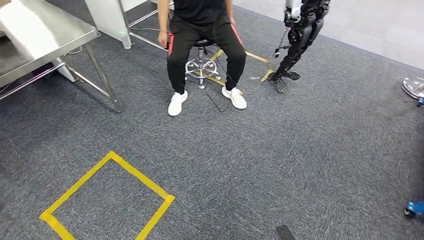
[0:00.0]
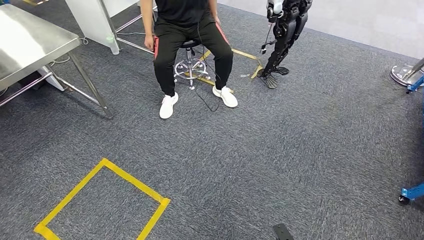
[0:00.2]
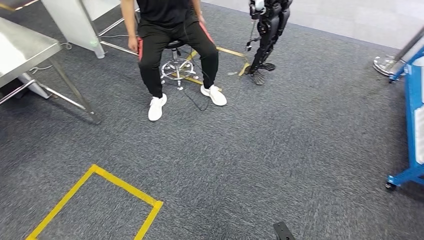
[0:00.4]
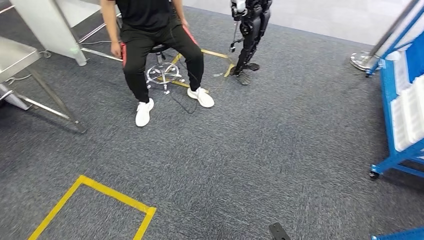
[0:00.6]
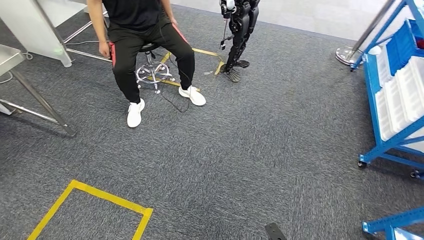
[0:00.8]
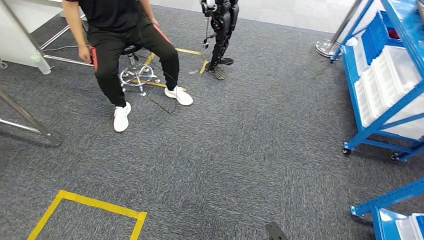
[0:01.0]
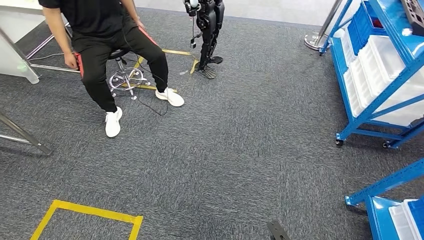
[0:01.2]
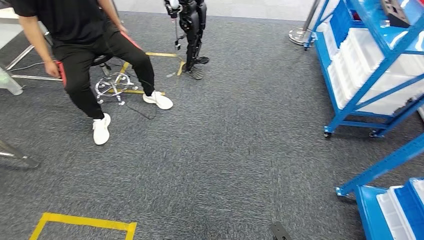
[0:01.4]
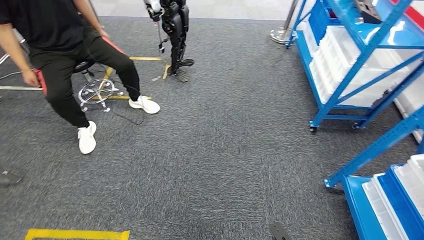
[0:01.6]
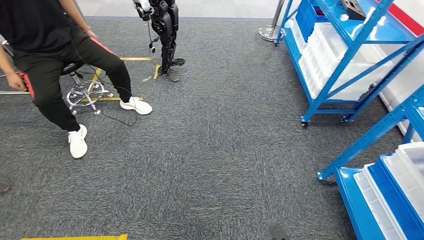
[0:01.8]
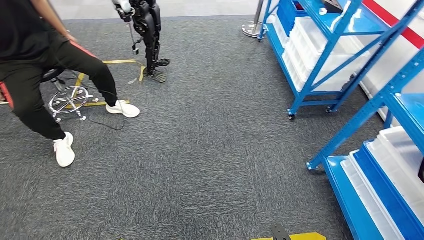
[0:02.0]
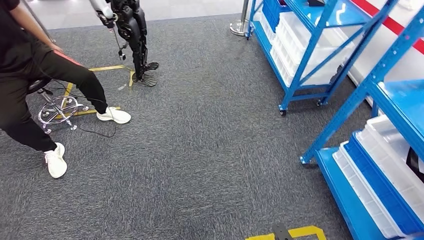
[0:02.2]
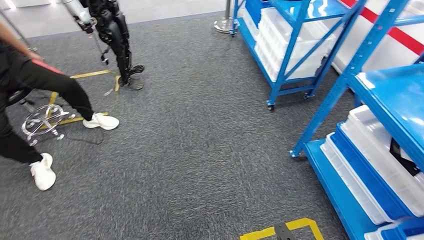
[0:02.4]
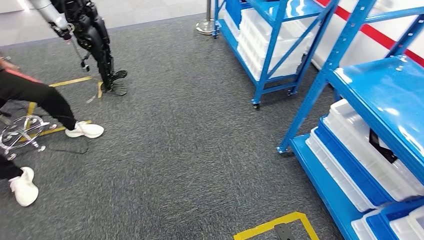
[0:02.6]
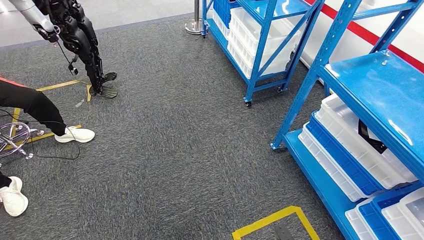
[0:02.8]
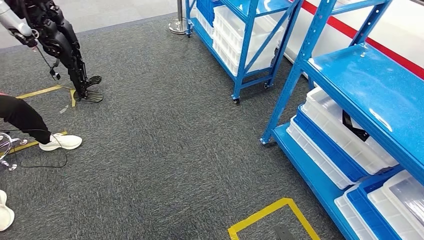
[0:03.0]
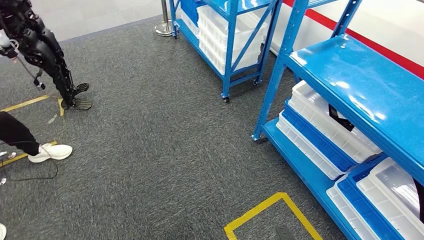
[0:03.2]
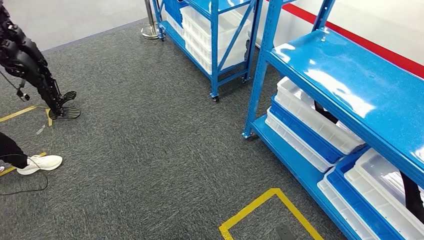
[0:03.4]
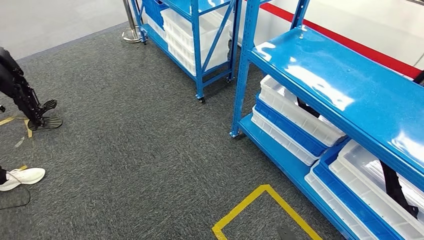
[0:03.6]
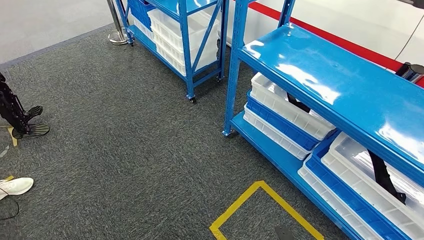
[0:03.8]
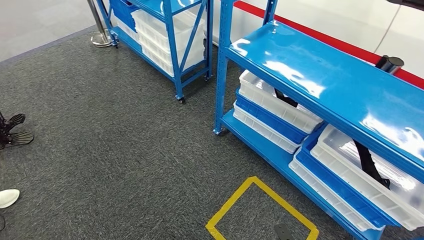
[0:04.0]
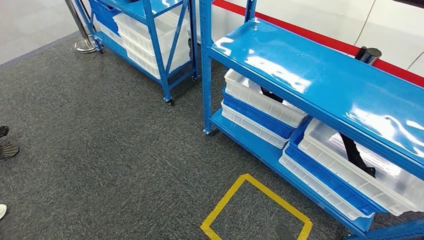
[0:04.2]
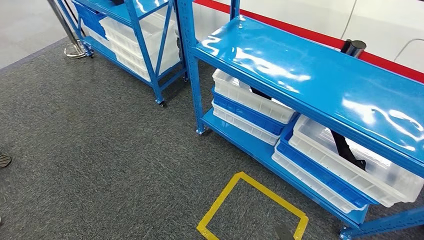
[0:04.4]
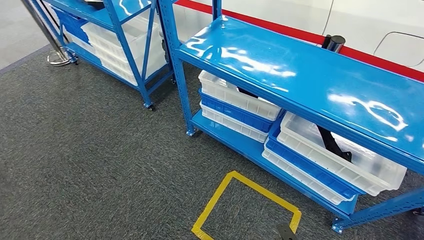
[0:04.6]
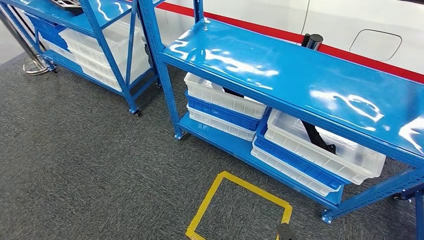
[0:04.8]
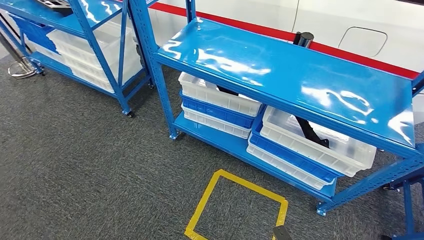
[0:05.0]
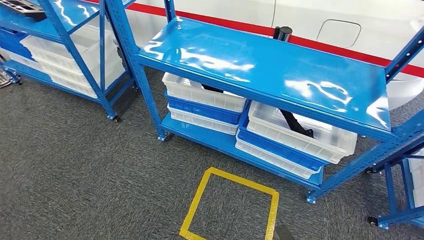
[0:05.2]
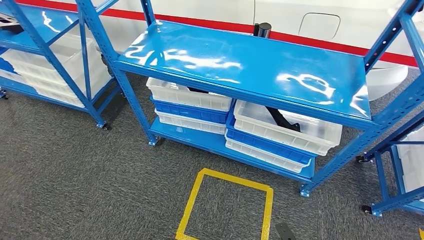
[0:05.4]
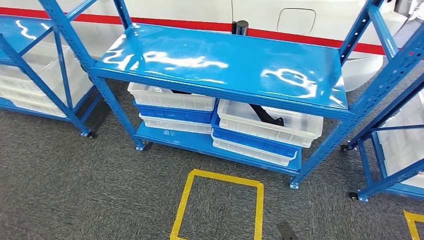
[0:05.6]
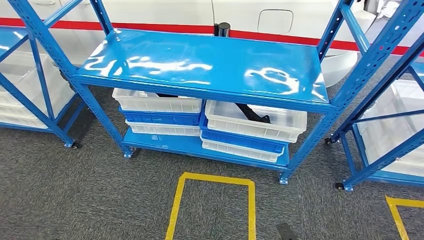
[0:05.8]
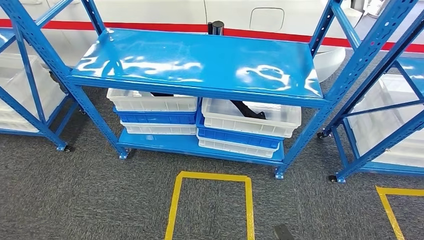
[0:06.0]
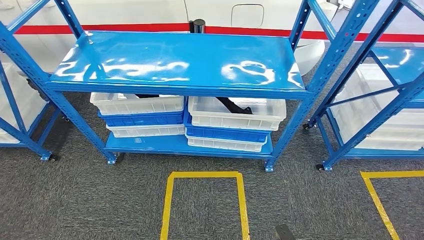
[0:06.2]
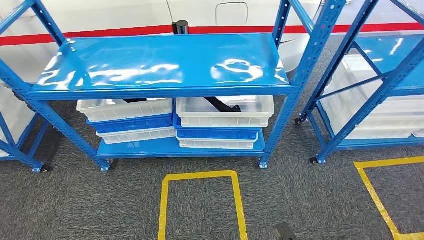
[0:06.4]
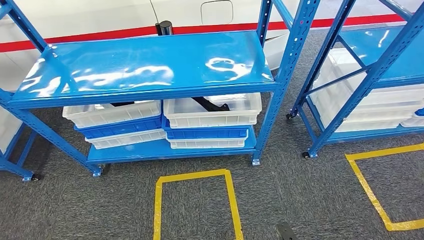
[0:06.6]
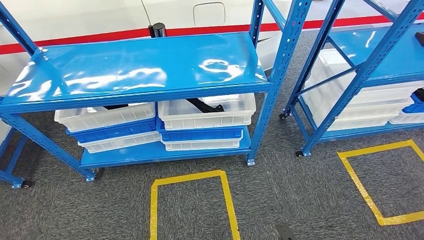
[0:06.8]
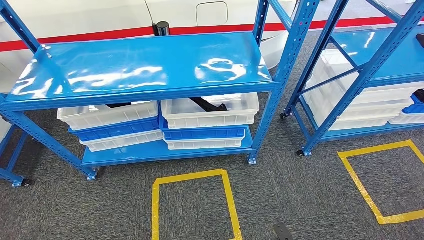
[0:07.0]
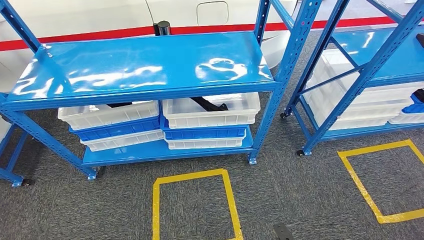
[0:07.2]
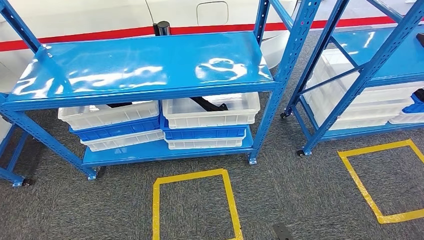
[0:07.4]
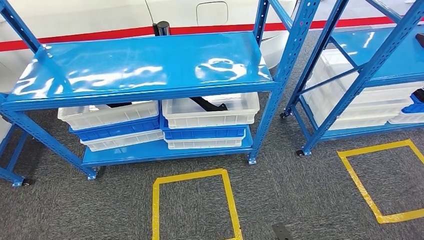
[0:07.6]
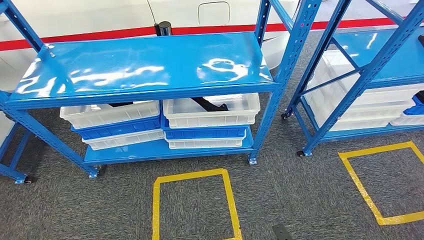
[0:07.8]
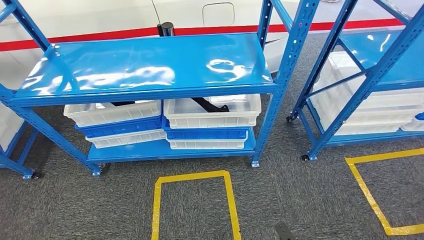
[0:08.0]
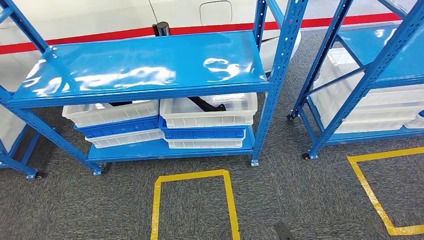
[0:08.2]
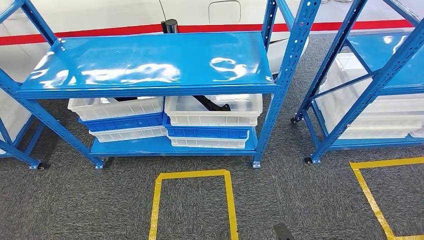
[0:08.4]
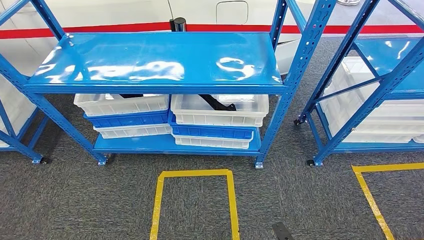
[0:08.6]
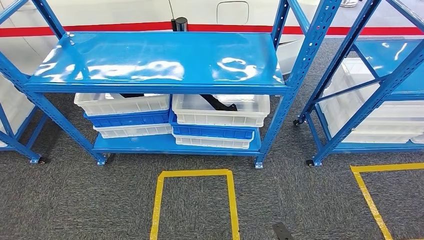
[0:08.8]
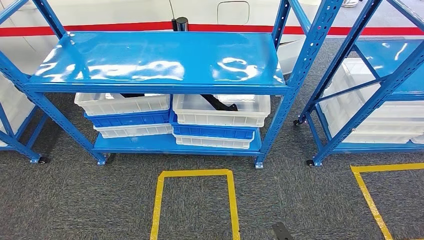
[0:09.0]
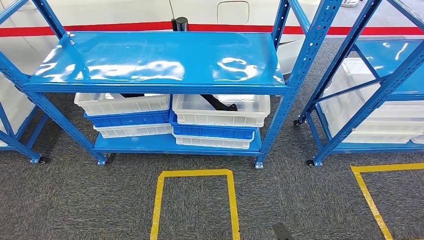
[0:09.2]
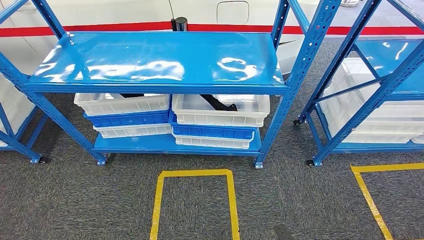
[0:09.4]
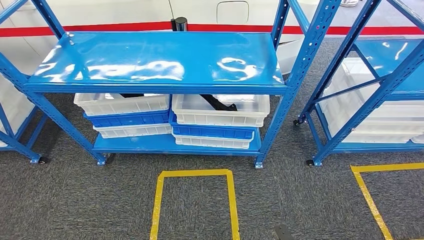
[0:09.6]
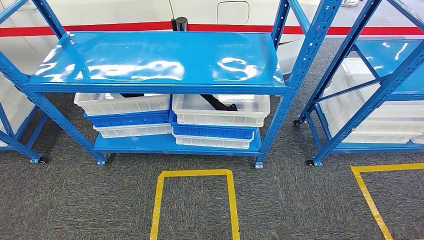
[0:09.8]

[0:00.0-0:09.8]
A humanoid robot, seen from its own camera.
Step, 0:00.0 to 0:09.8: Return to the initial position at the shelf.

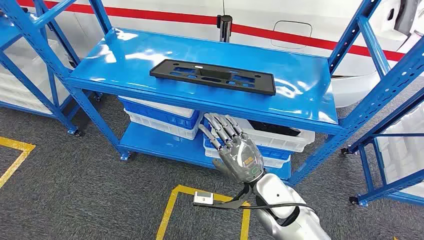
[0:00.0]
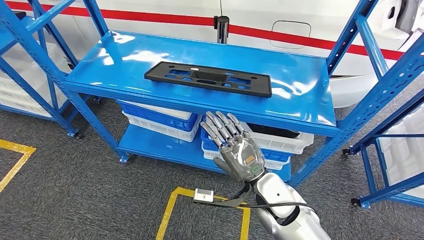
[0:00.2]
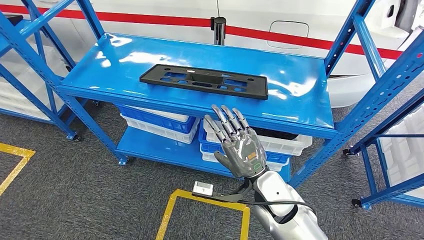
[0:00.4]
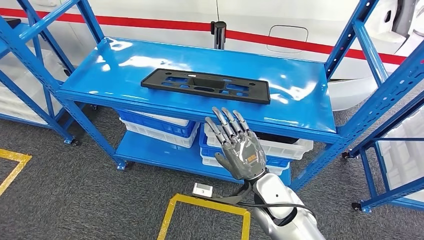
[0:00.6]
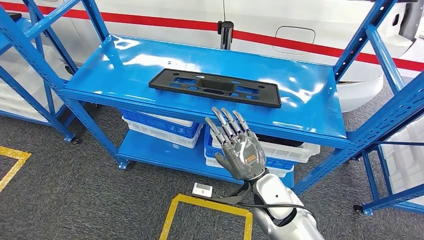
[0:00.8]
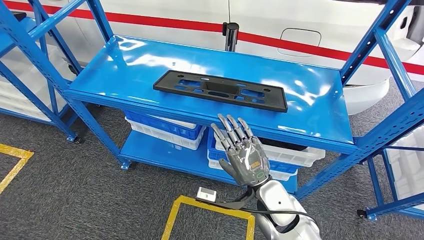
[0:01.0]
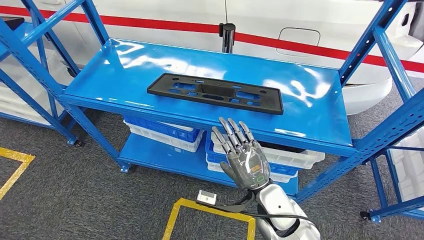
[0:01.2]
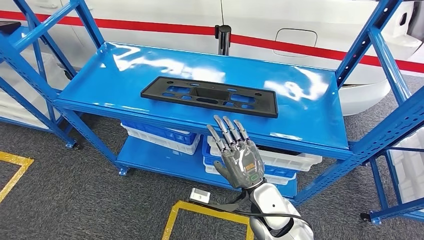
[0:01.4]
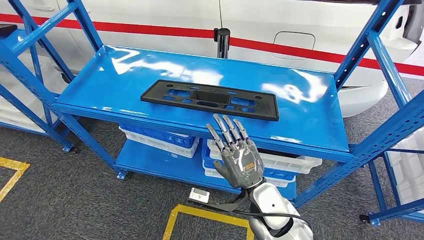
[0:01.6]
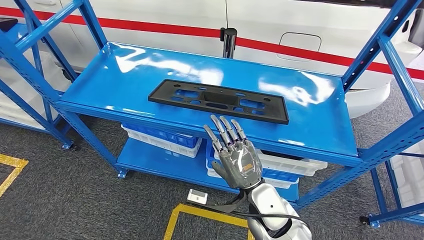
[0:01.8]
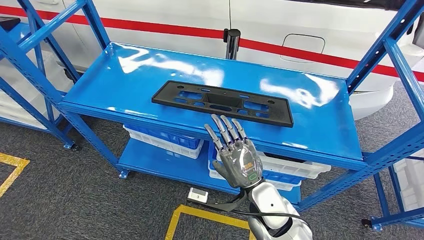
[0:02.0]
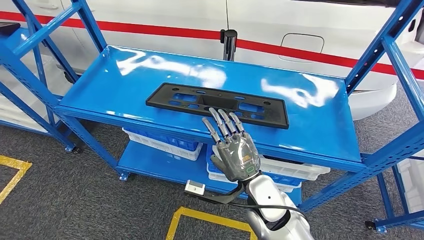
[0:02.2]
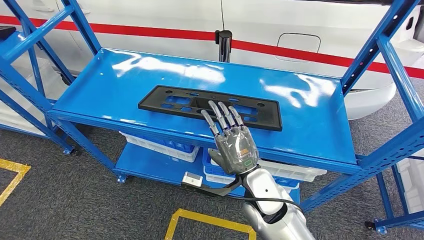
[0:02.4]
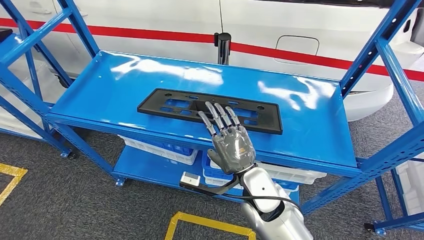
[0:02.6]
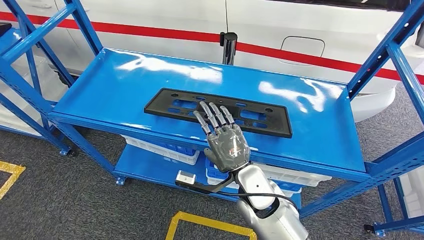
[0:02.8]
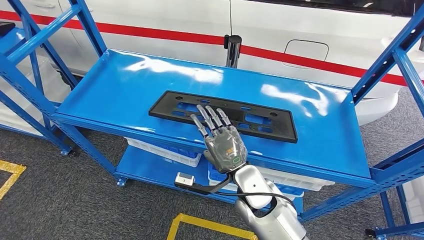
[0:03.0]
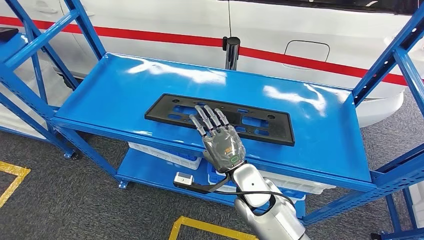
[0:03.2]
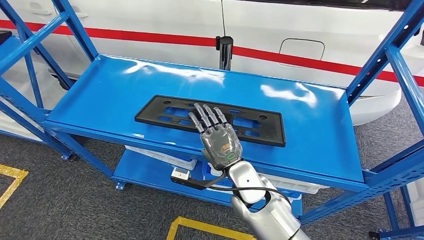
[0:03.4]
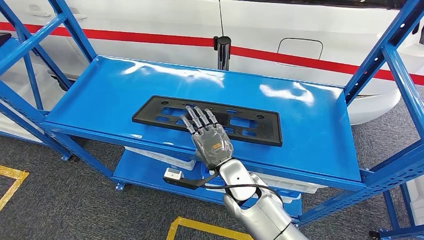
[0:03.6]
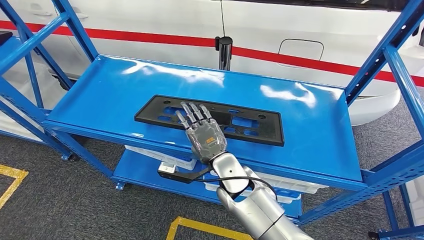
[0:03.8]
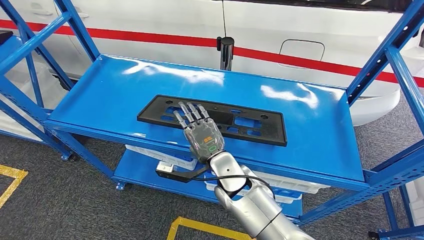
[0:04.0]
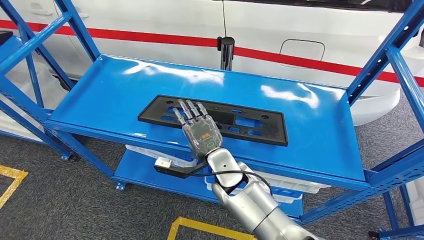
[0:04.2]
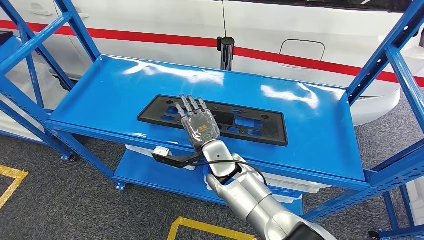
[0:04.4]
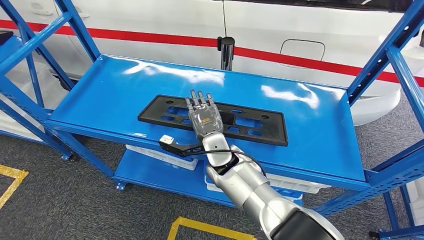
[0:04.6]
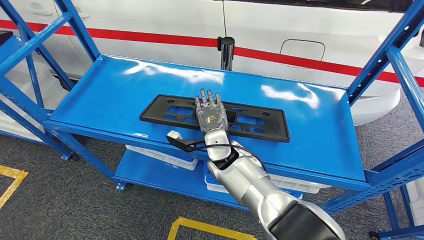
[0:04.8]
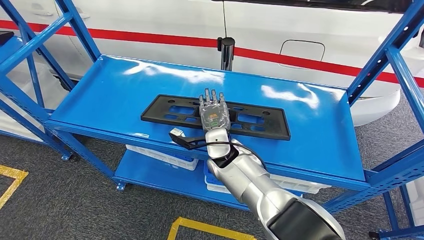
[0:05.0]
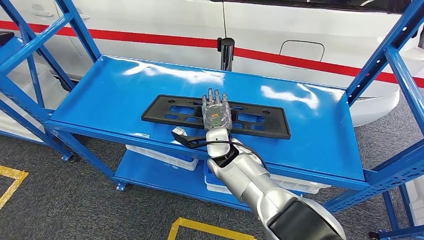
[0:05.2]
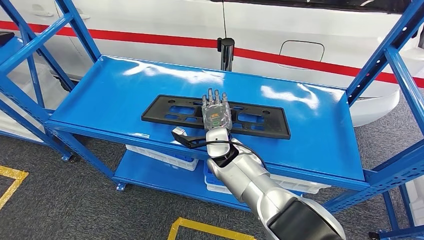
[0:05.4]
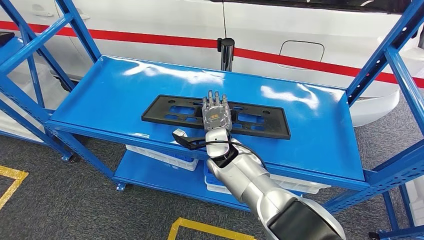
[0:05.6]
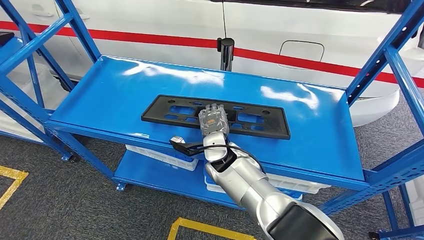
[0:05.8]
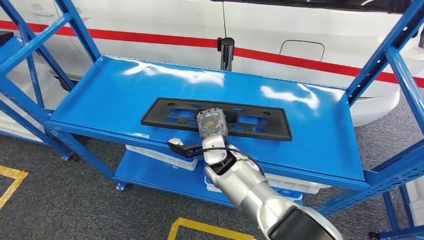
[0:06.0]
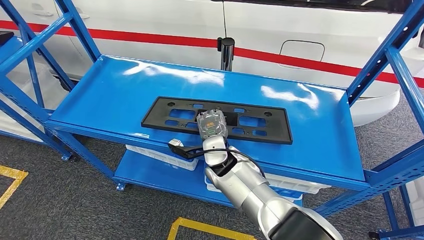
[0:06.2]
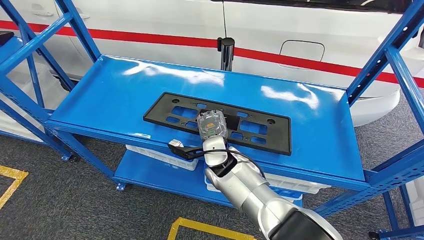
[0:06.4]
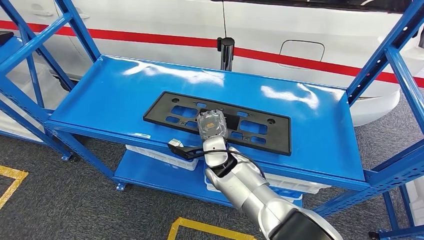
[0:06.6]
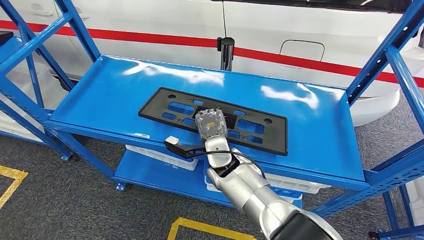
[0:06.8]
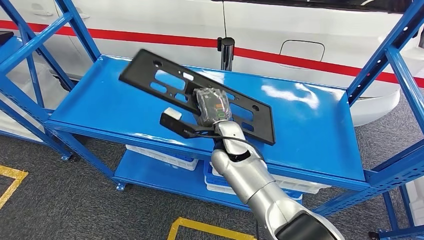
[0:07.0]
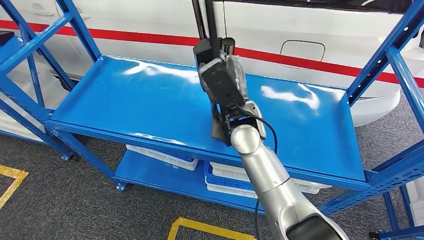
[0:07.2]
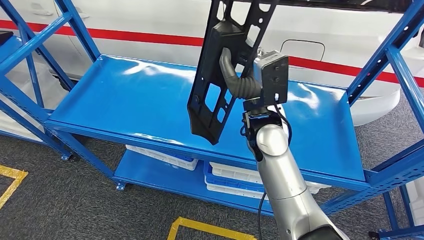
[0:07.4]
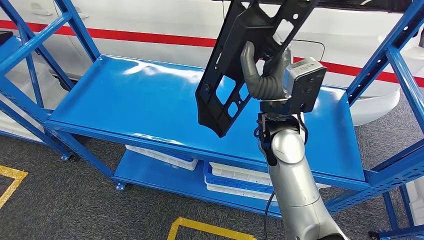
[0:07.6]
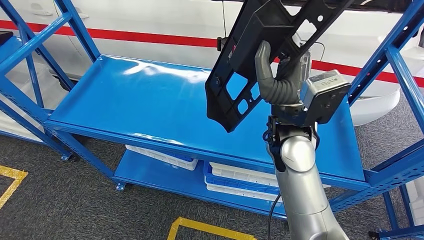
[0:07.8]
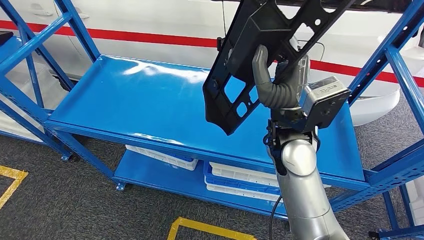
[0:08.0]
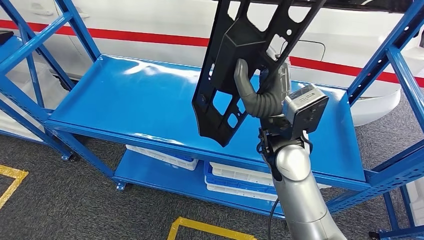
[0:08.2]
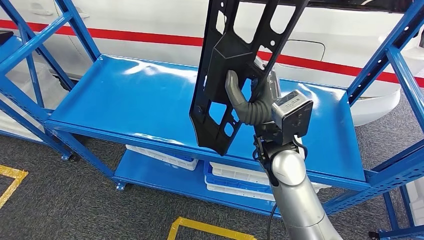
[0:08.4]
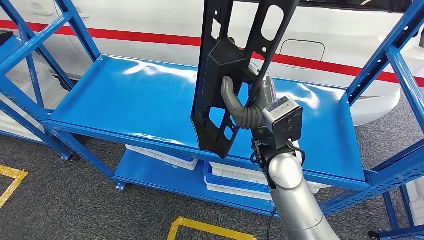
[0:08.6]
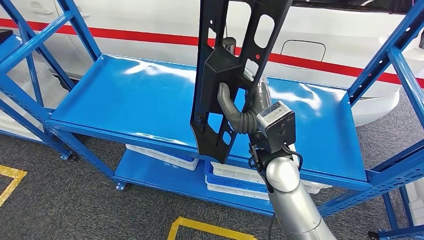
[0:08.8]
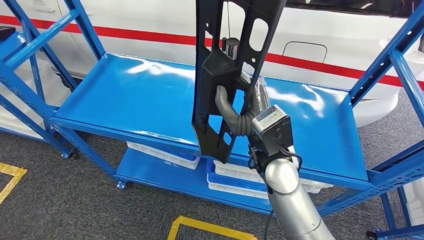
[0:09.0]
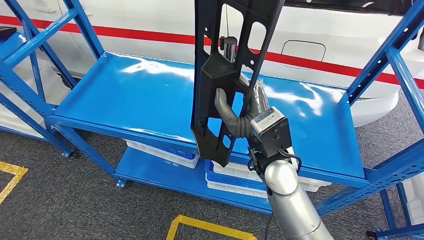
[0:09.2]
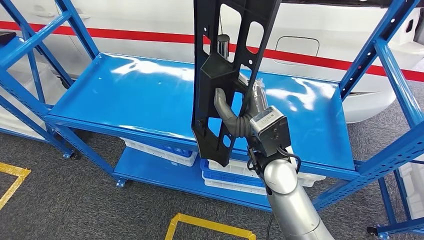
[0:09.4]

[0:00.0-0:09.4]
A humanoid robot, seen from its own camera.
0:04.8 to 0:06.2: The hands stay close to where they were, moving slightly.
